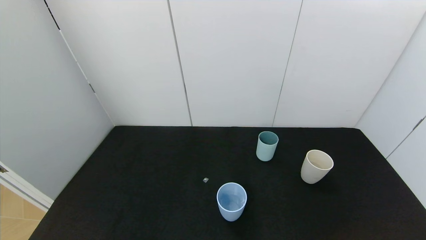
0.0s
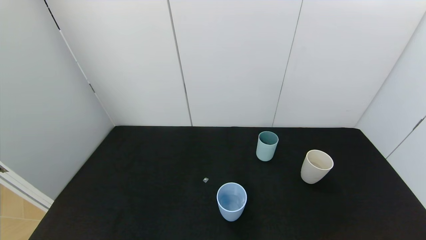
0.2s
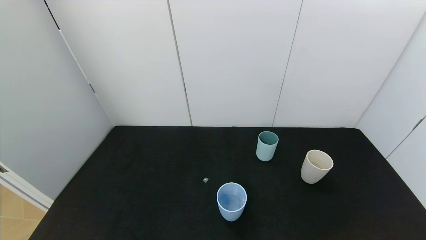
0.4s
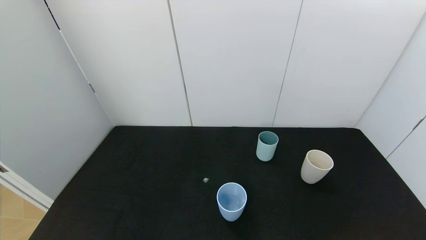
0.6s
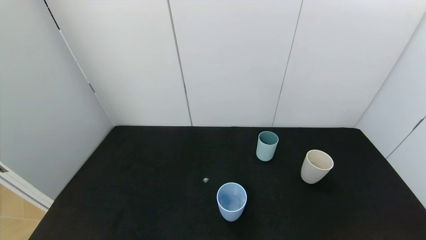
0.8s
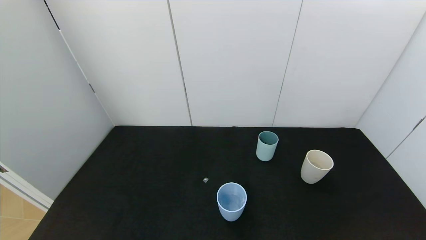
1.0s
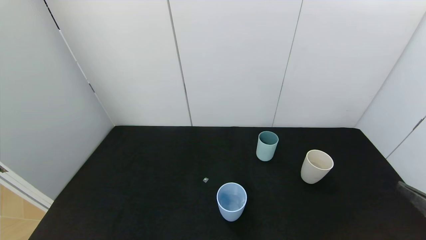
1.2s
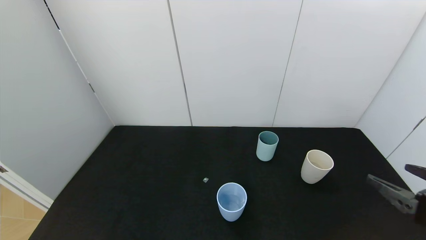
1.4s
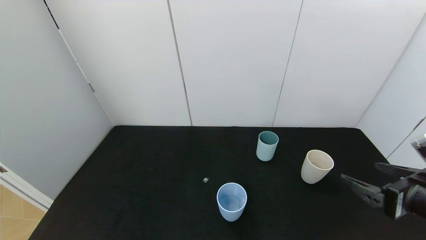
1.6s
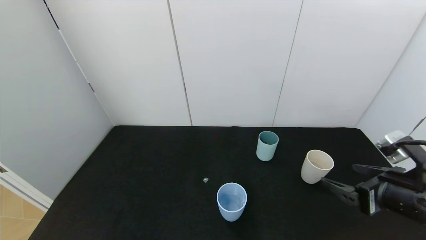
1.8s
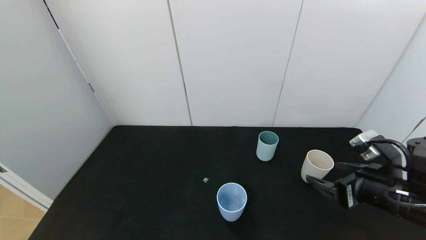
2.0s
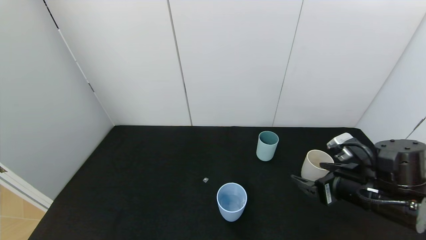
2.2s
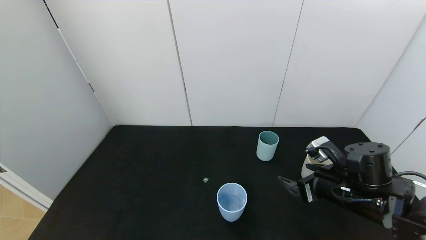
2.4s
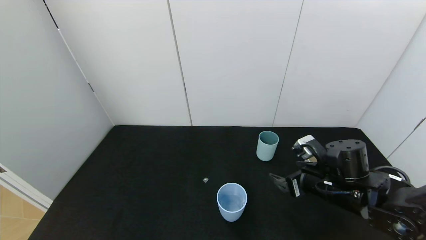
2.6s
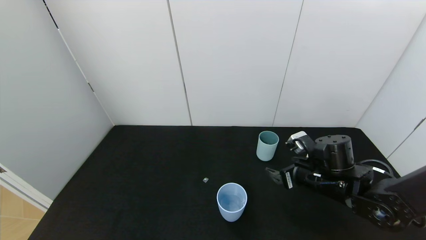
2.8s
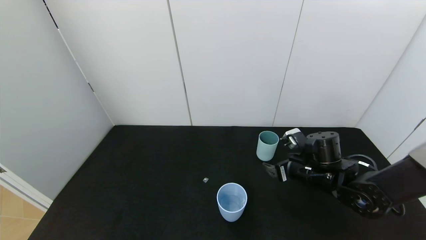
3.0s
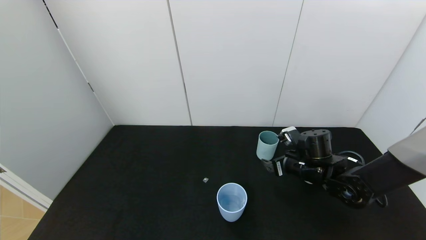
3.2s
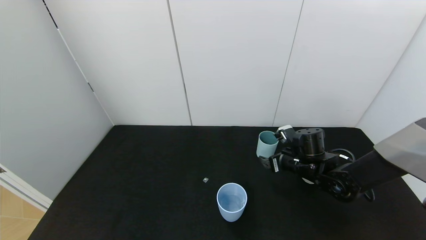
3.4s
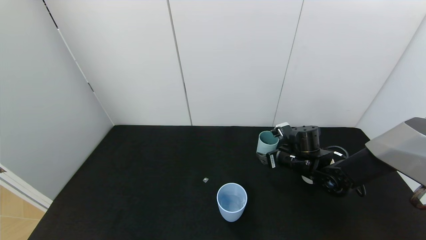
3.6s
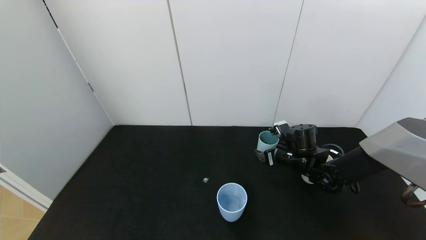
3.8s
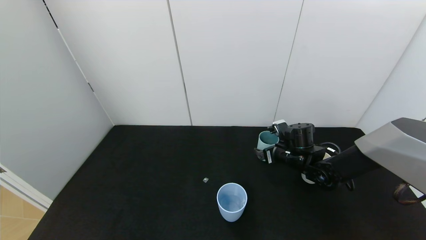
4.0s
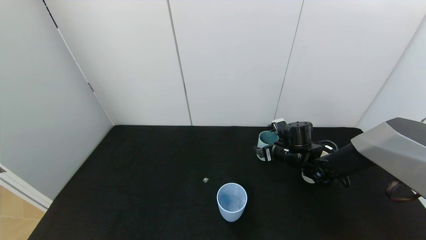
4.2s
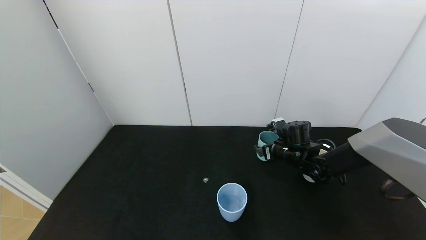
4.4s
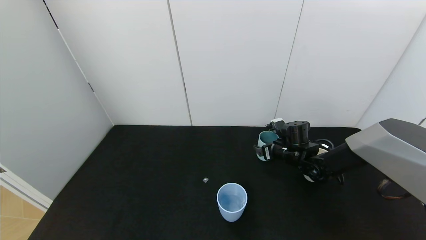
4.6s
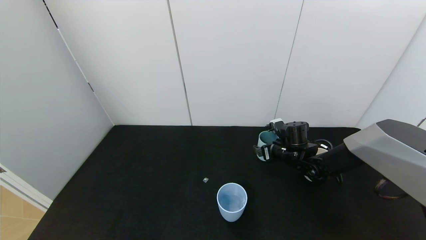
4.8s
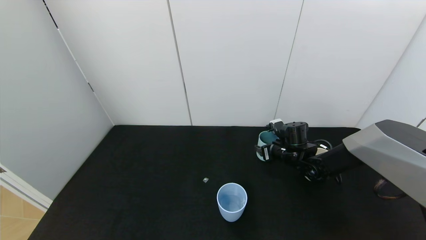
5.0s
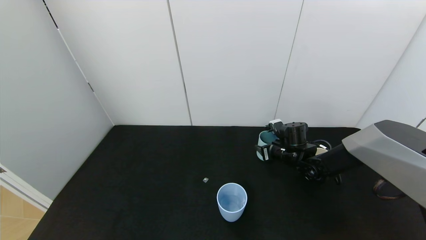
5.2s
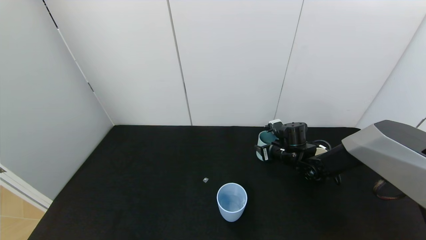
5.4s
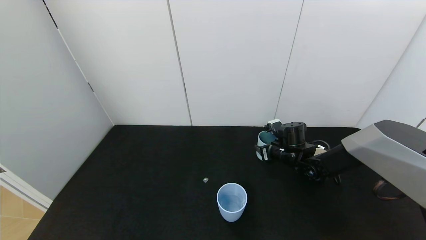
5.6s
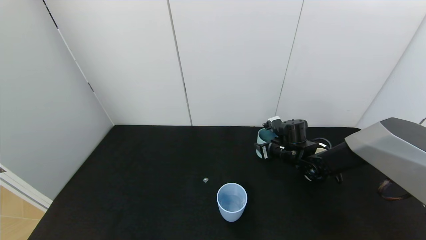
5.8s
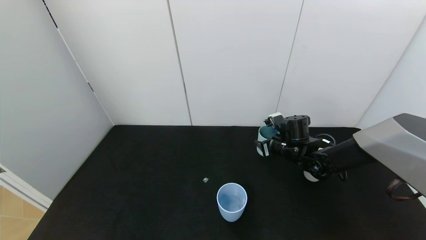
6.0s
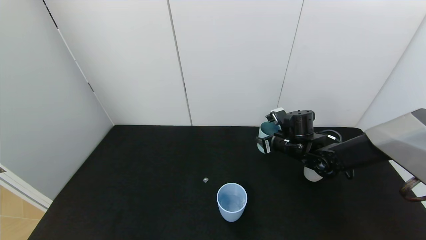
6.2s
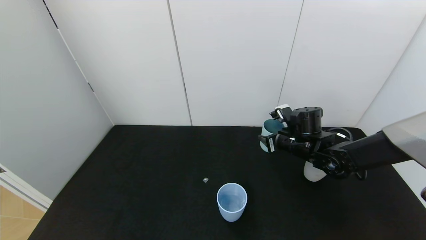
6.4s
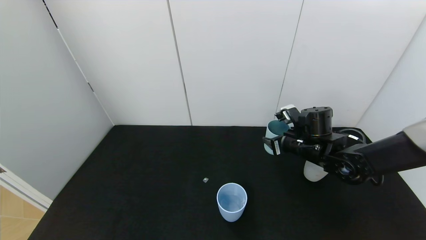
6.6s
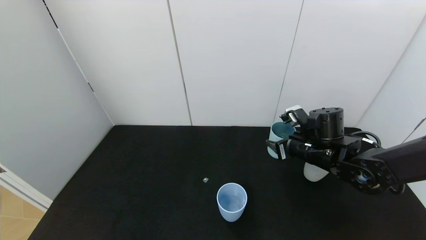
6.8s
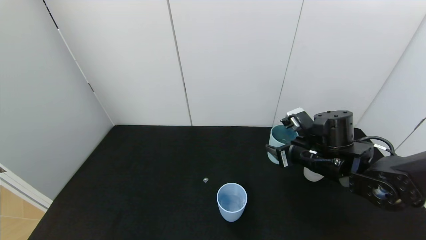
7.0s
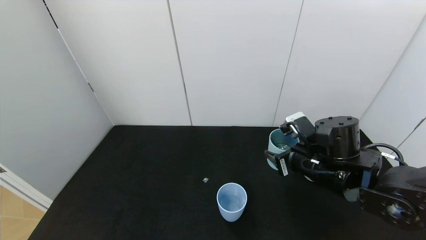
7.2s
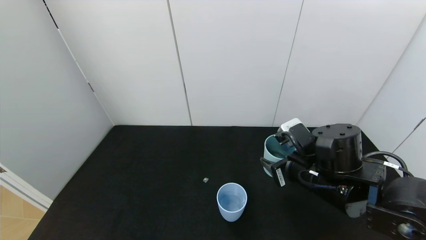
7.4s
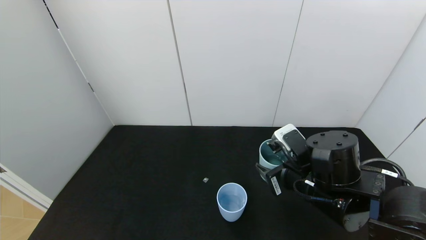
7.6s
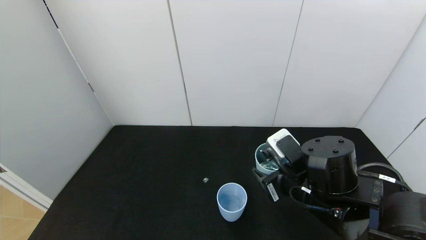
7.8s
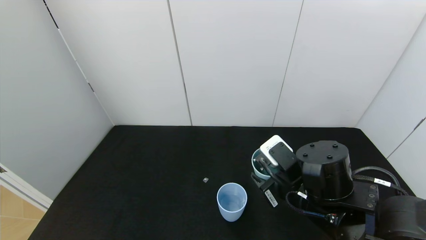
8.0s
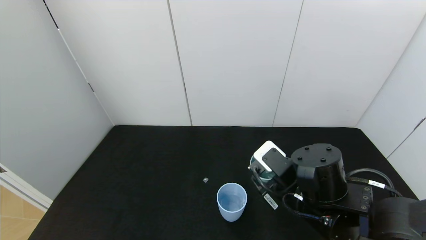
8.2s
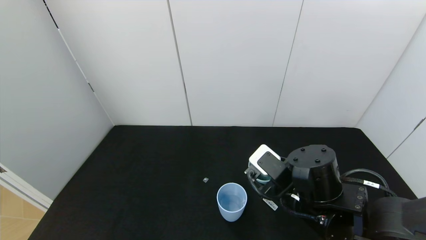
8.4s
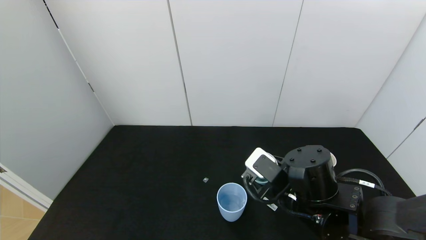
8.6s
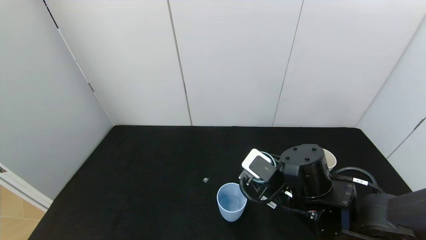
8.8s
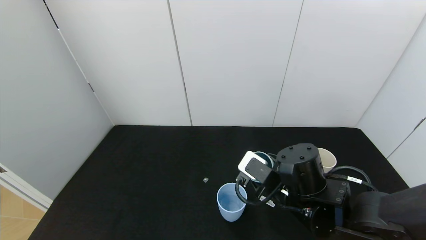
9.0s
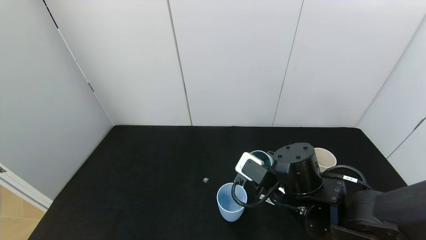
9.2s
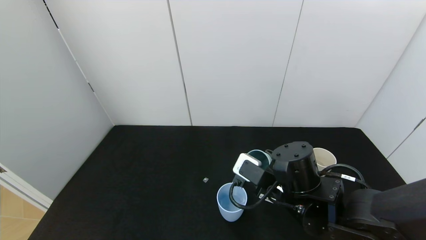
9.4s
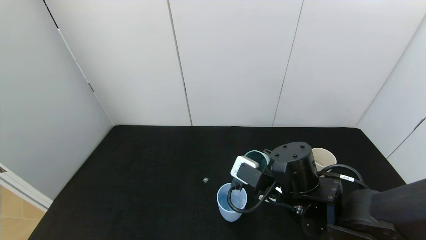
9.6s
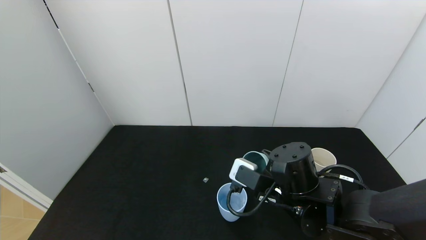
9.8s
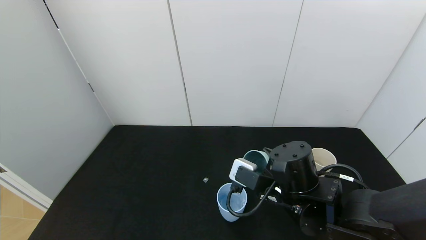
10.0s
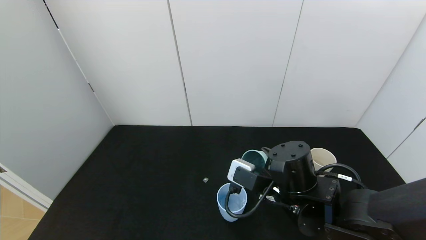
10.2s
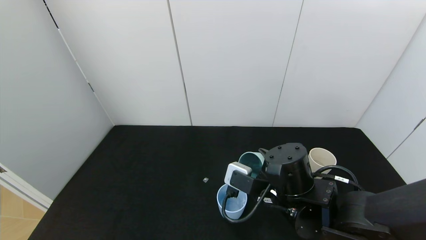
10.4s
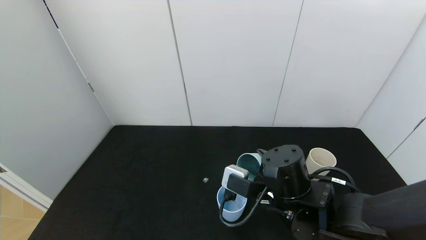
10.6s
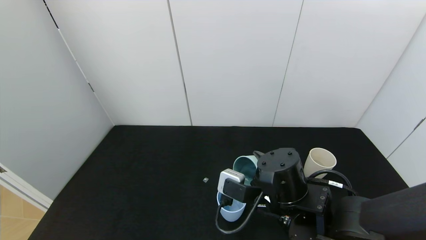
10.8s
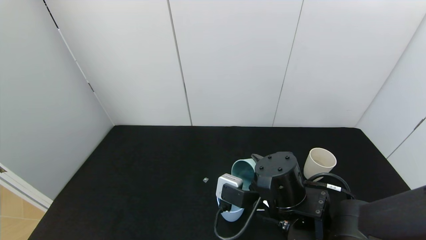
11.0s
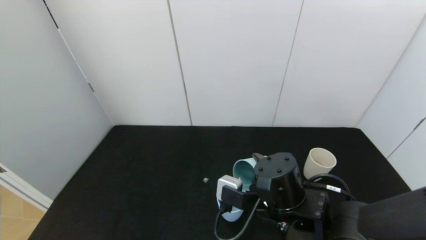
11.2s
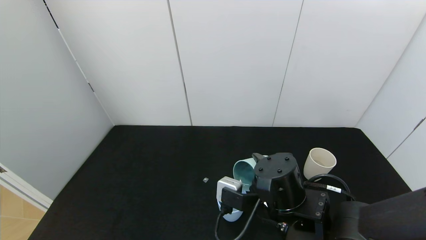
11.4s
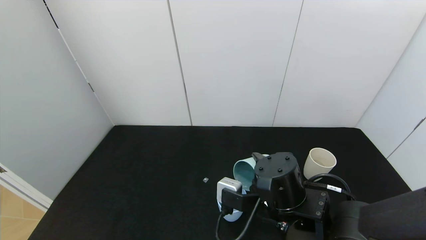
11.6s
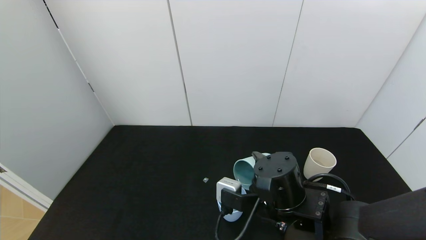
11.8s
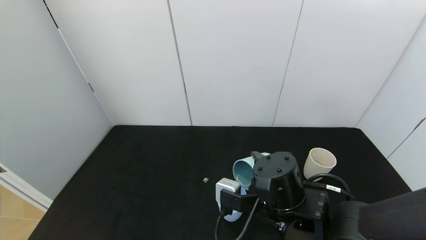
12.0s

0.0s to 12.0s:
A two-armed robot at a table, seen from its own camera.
Task of the whole recording: use the gripper to pour the water into the other two cups on black table.
Step, 0.0s to 5.8s: Pick up the green plastic cup with right gripper.
0.0s to 1.6s: The right gripper is displaced forward and upward by roughly 20 cm.
1.6s to 3.0s: The right gripper travels forward, to the left and downward by about 20 cm.
3.0s to 4.4s: The right gripper is displaced forward by roughly 10 cm.
4.4s to 6.0s: The right gripper closes its fingers.
6.0s to 7.6s: The right gripper goes about 20 cm backward.
9.0s to 10.4s: There are only small adjustments of the grippers.
10.4s to 12.0s: The grippers make only small movements.

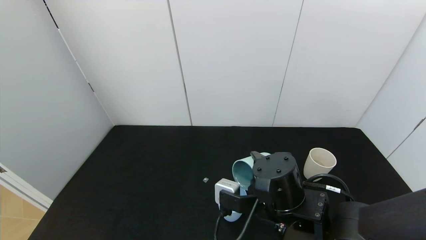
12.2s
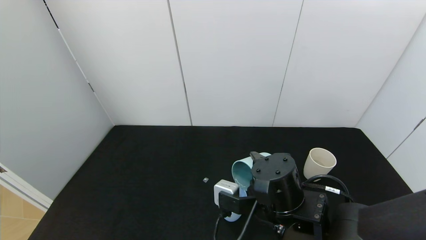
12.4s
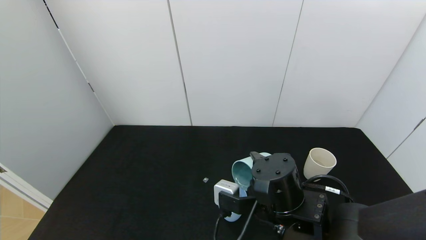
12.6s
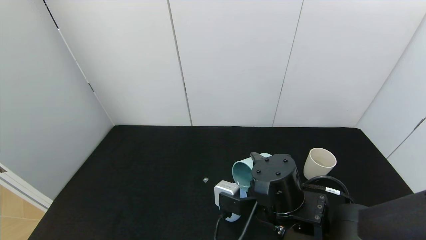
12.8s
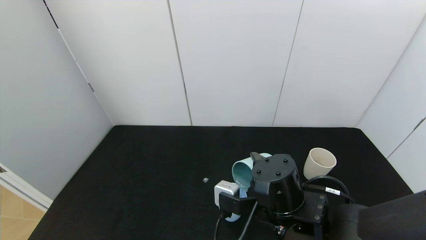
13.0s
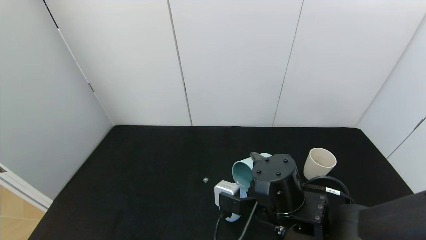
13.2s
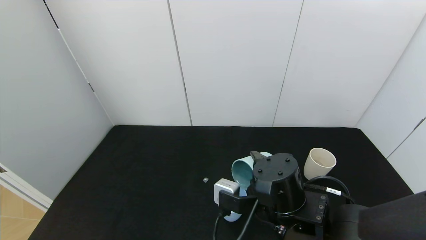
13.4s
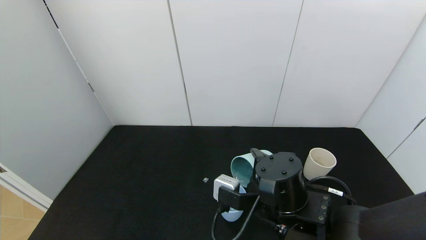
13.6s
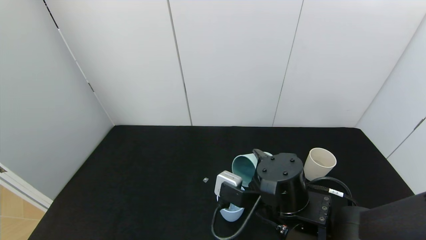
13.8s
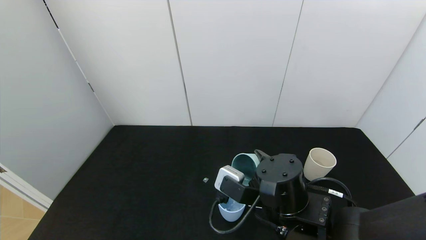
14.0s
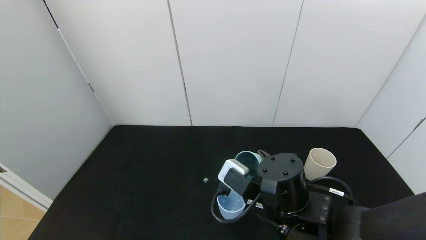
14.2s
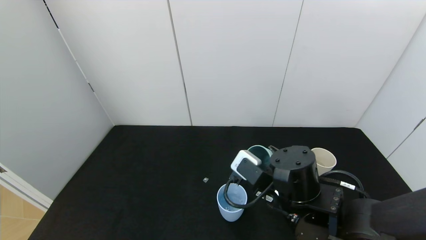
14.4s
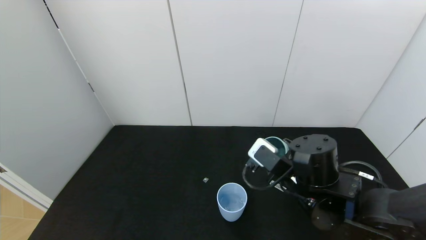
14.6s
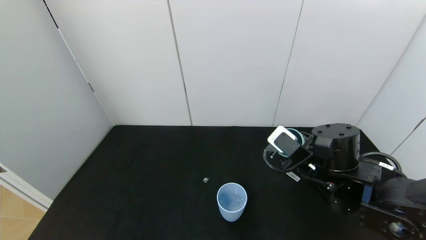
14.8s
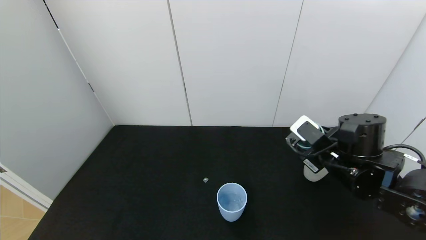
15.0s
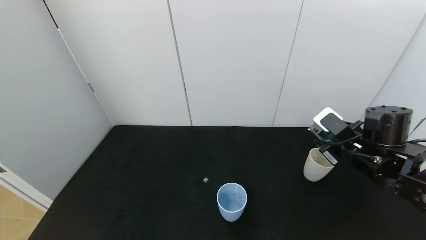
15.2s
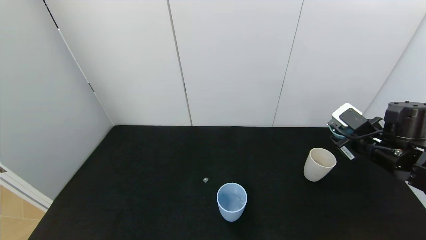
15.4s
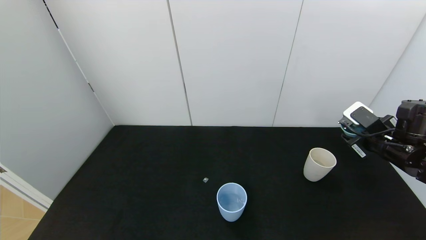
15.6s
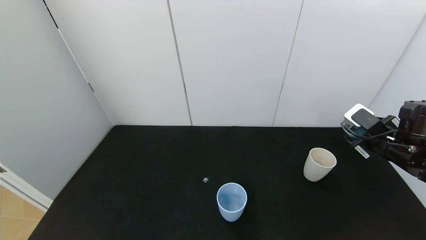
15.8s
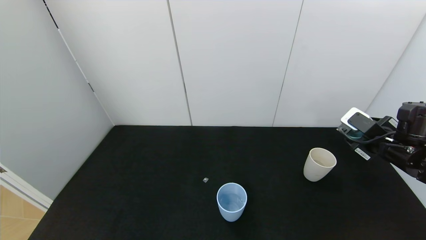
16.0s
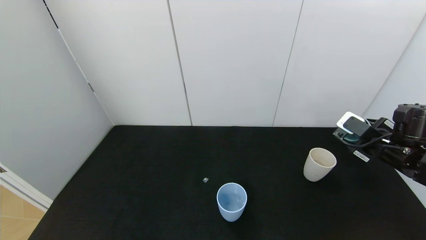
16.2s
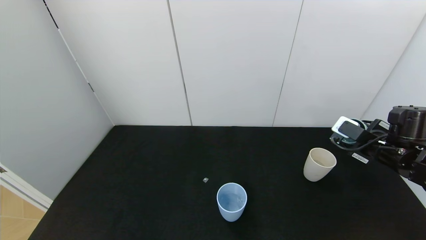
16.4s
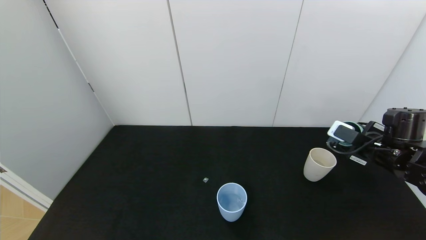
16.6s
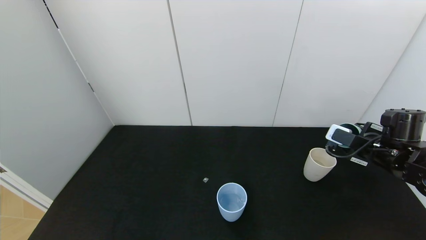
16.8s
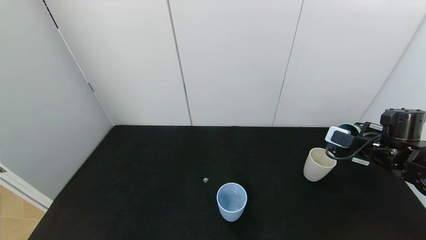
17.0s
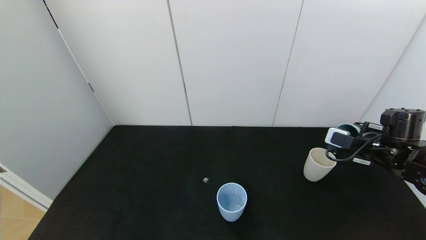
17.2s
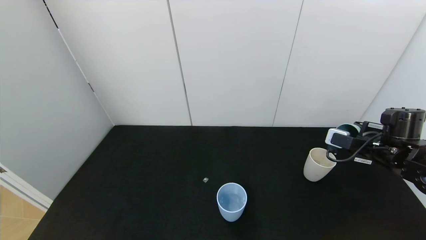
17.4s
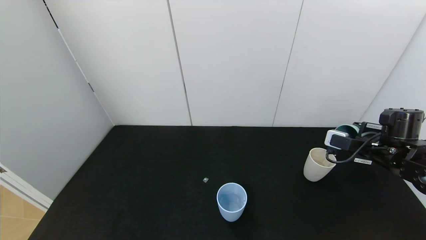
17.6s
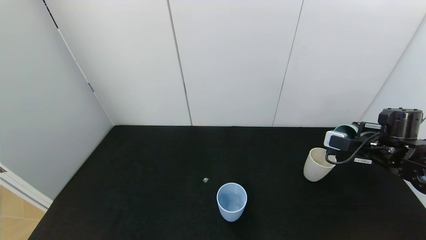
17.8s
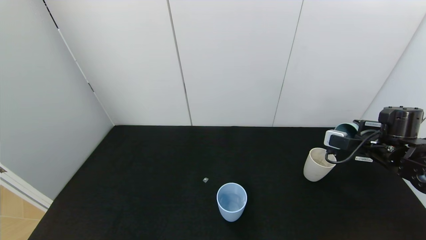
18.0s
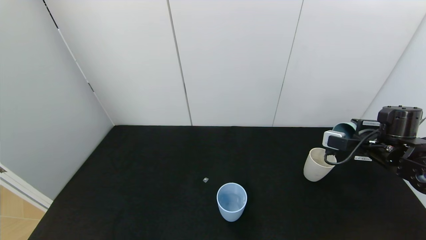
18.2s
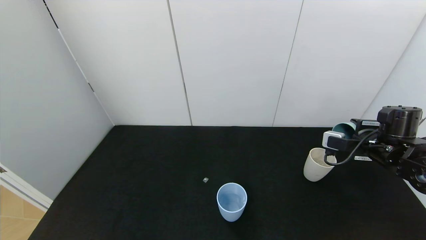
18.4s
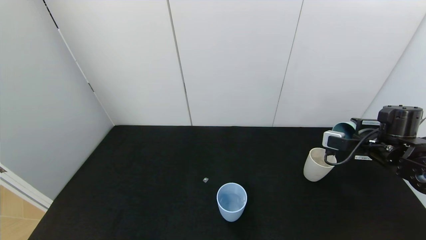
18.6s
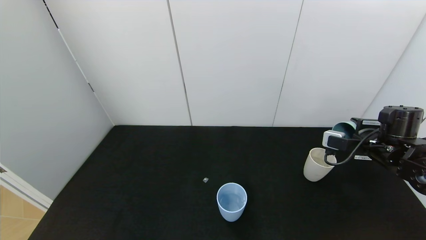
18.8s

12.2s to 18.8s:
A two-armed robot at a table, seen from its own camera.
Task of the whole recording: use the gripper to pour the water into the other two cups on black table.
Step, 12.2s to 14.2s: Pour water into the blue plastic cup with right gripper.
12.2s to 13.8s: There are only small adjustments of the grippers.
13.8s to 15.4s: The right gripper is displaced to the right by about 20 cm.
17.2s to 18.8s: The grippers make only small movements.
